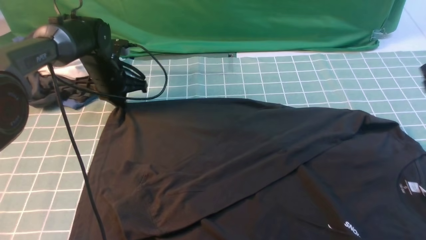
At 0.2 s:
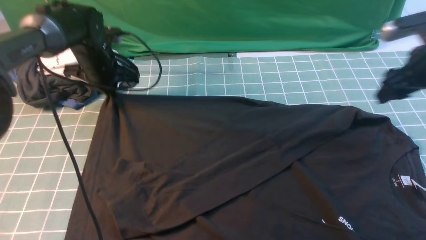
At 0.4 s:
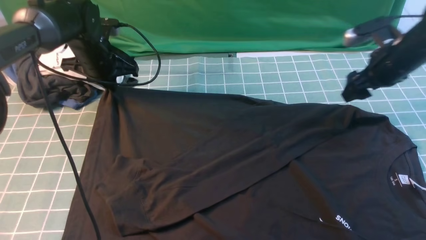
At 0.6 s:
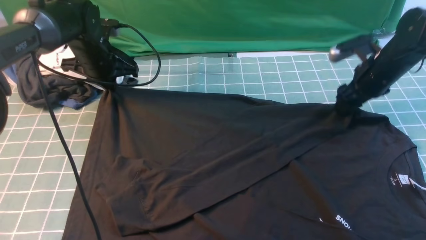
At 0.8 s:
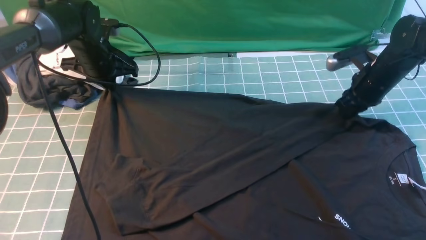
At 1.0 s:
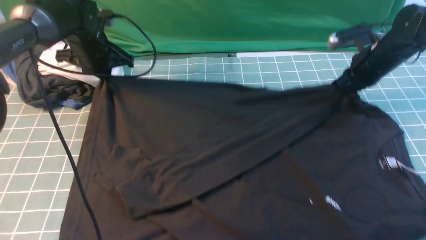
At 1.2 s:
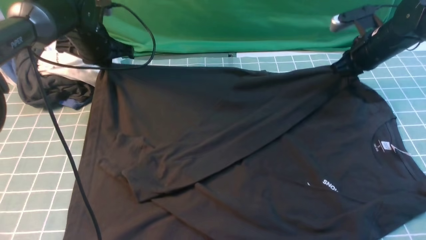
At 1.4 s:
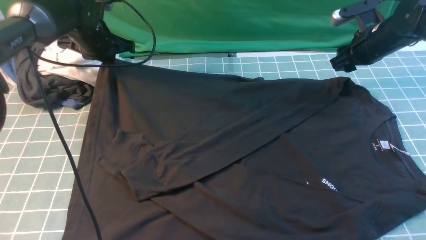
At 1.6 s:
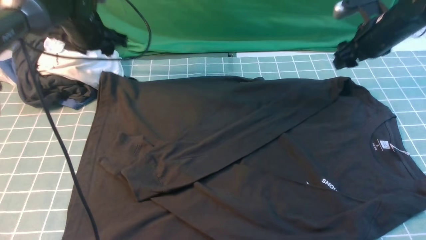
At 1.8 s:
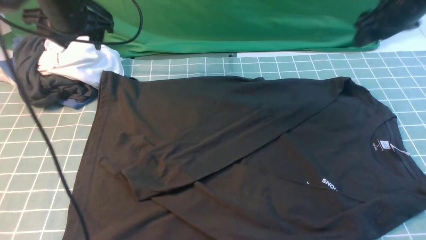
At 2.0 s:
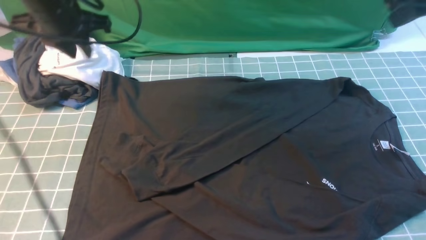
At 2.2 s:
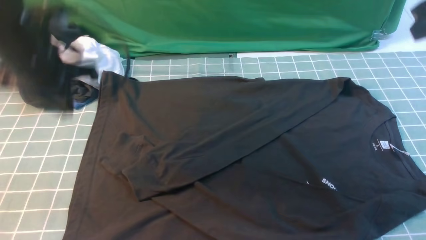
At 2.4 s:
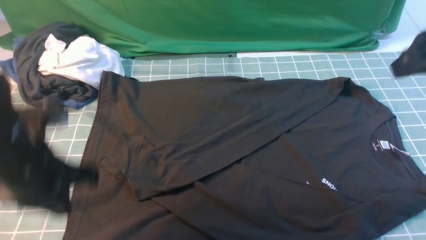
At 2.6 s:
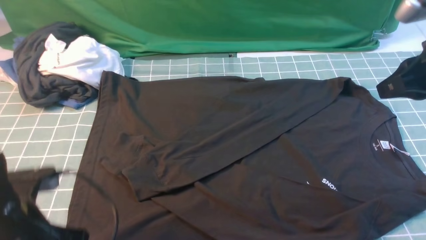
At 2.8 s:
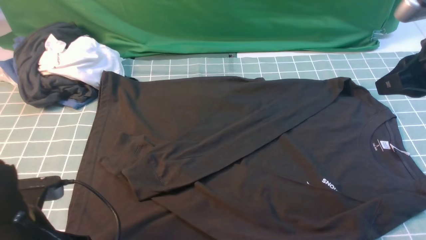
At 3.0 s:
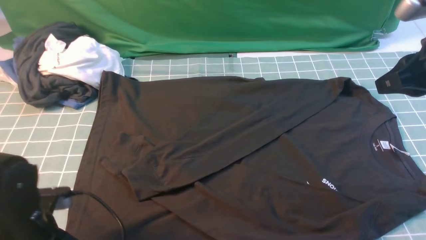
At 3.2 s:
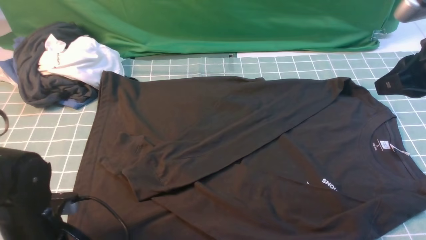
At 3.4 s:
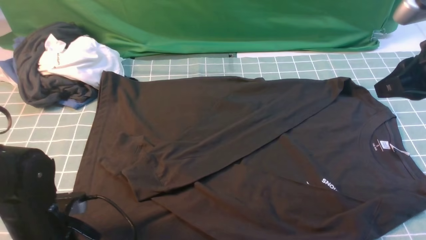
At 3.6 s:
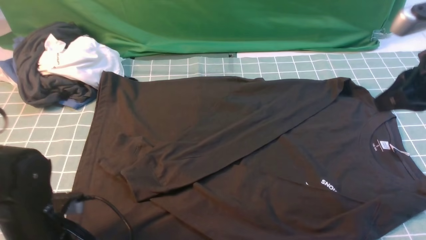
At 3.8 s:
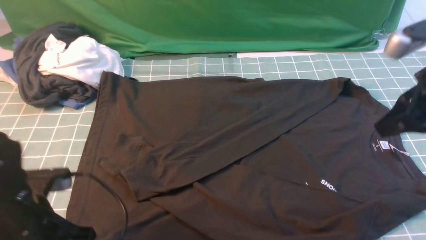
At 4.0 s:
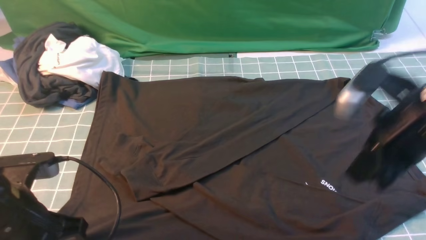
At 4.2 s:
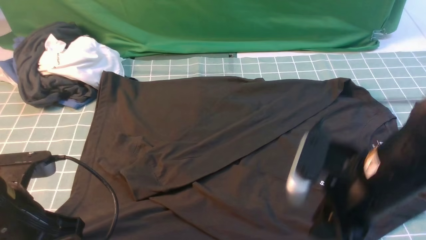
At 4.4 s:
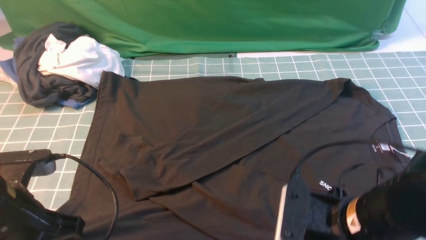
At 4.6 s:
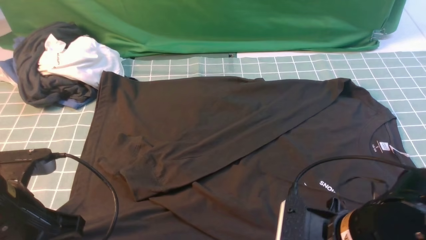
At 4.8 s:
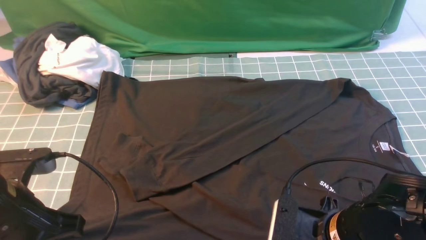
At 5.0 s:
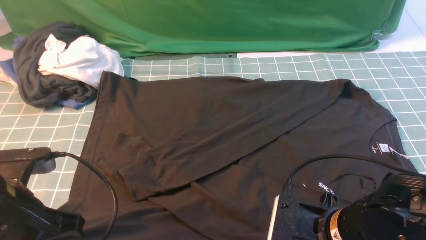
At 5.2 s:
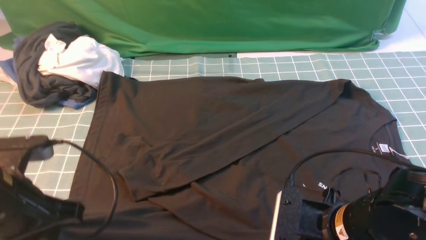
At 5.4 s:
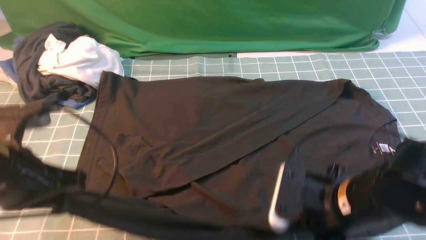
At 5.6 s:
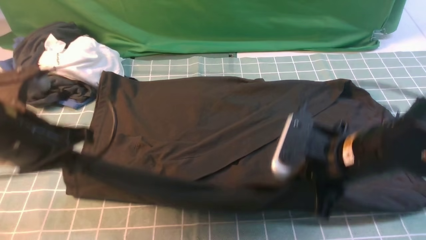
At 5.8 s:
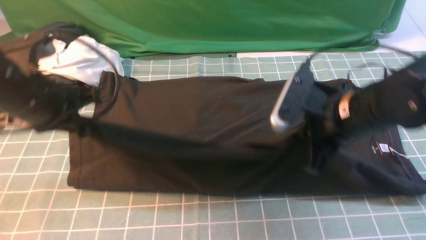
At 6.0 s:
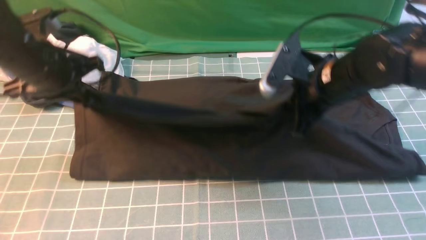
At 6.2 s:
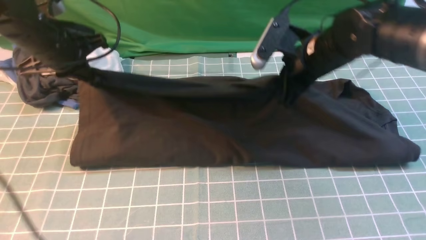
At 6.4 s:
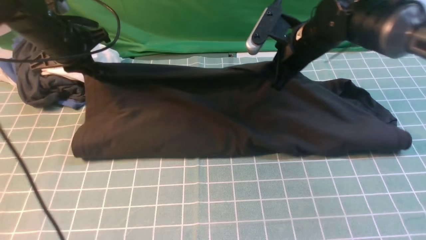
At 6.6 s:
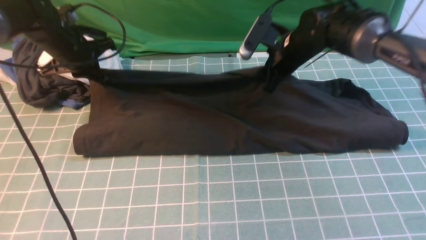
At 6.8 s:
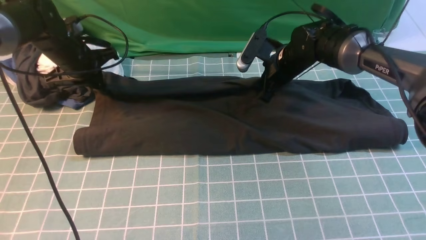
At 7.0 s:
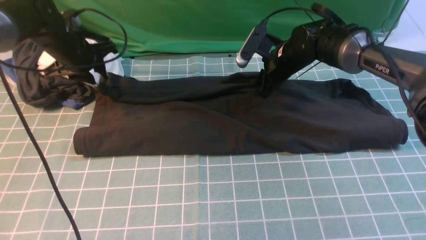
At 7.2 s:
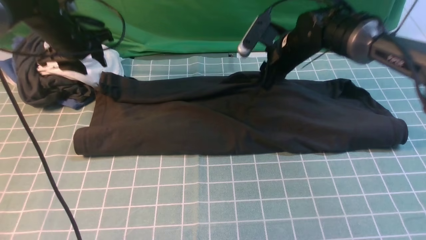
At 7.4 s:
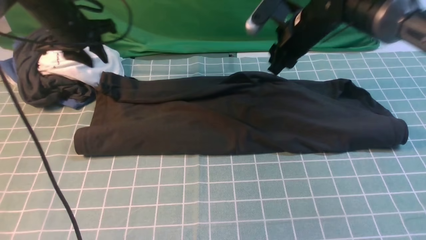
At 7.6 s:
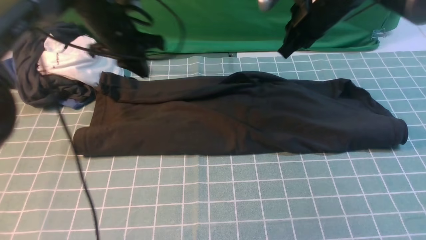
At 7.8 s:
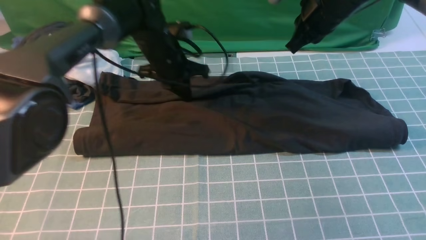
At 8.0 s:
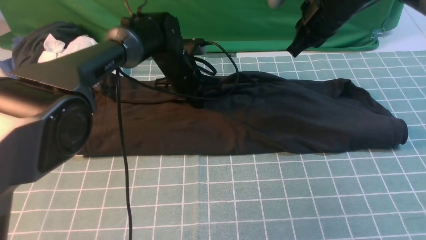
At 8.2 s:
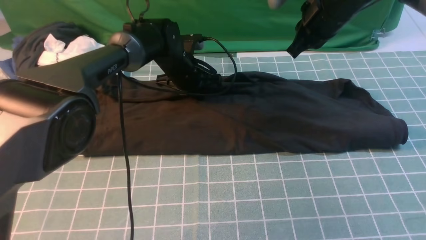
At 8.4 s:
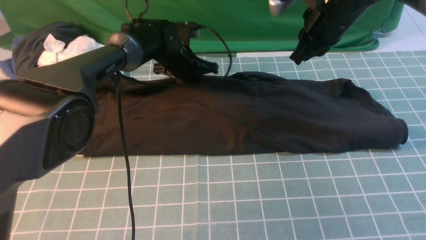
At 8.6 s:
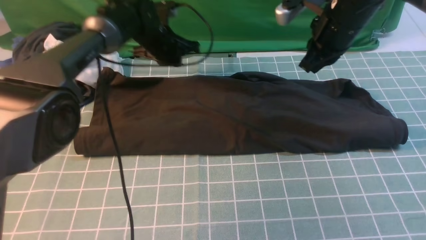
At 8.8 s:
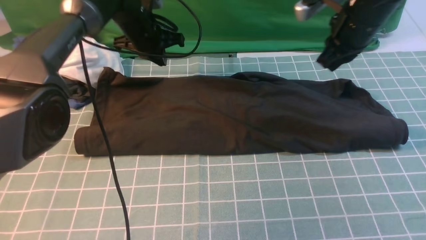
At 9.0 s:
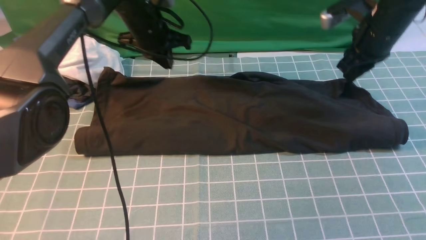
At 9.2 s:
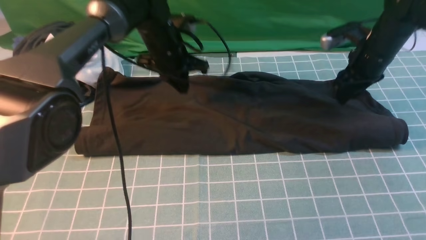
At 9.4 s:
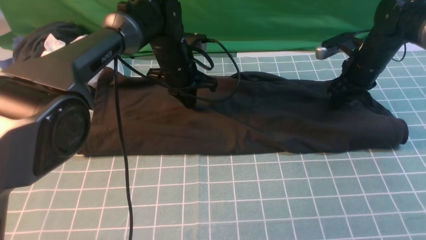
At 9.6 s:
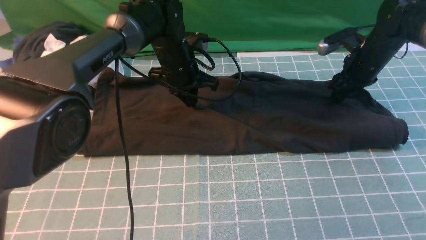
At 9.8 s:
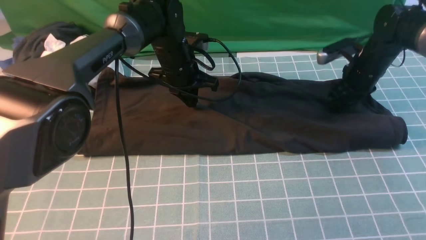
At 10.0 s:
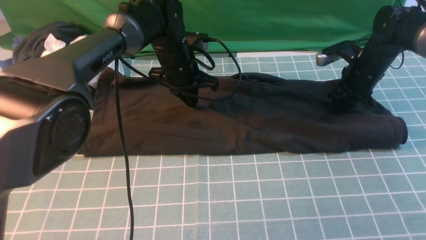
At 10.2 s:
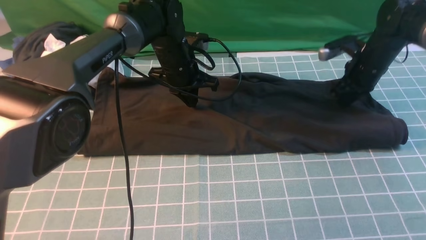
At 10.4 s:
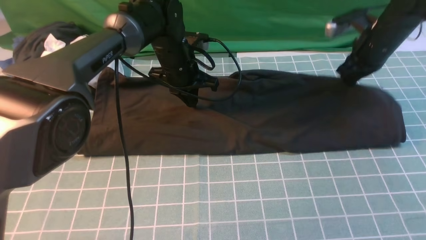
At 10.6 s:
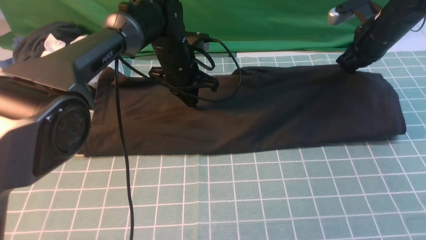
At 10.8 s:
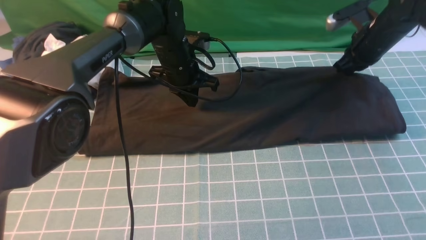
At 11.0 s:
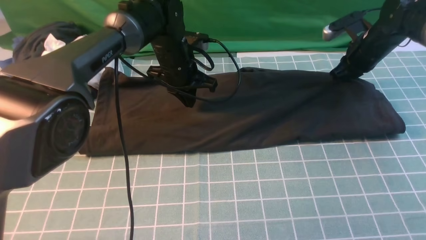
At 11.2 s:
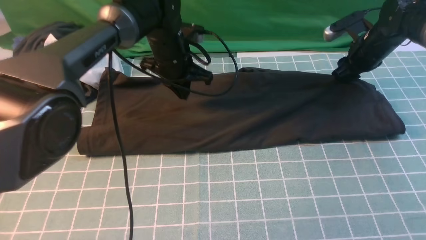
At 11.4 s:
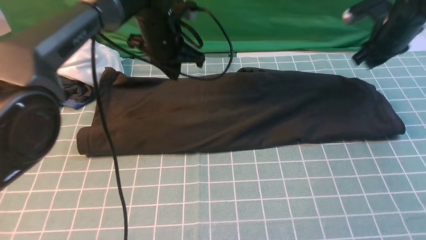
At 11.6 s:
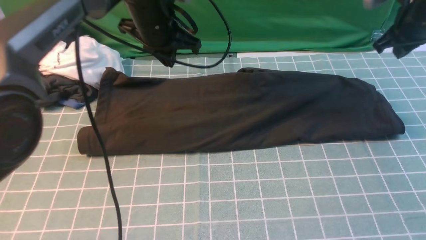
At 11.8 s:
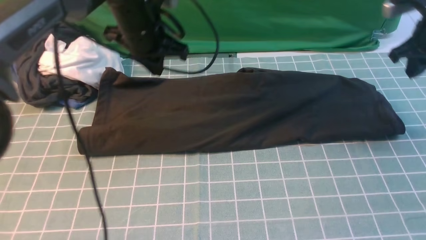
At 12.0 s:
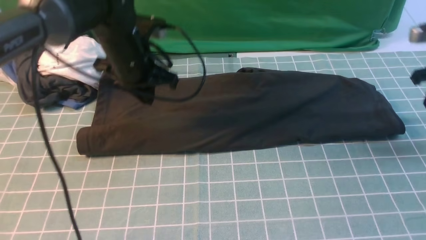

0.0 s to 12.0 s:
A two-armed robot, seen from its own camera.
Step, 0.0 to 7.8 s: use both arms to drag the lower edge of the fabric forward and fold it over the upper edge.
0.0 to 1.6 s: The left gripper moves upward, approximately 10 cm, and opens, while the right gripper goes some 15 cm forward and to the left, and opens up.
1.6 to 3.0 s: The left gripper travels backward by about 30 cm, and closes, then reopens. Meanwhile the right gripper is displaced backward by approximately 20 cm, and closes.
3.0 to 4.4 s: The right gripper shifts about 25 cm backward, downward and to the left, and opens. Meanwhile the left gripper goes some 5 cm upward, and closes up.
4.4 to 6.0 s: Both grippers move forward, roughly 20 cm. The right gripper closes.
6.0 to 7.6 s: The right gripper goes approximately 10 cm forward, and opens, then closes once more, while the left gripper shifts some 15 cm forward and to the right, and opens and closes again.
7.6 to 9.0 s: The right gripper is displaced to the right by roughly 10 cm. The left gripper goes downward and returns, roughly 10 cm each way.
9.0 to 10.4 s: The left gripper changes place by some 5 cm.
10.4 to 12.0 s: The left gripper moves to the left and backward, some 10 cm; the right gripper goes roughly 15 cm to the right and backward.

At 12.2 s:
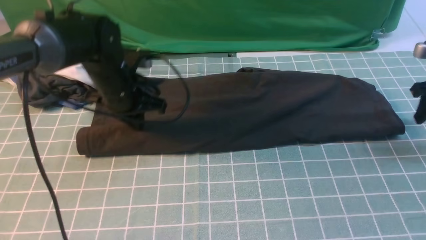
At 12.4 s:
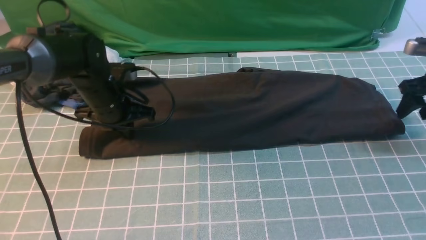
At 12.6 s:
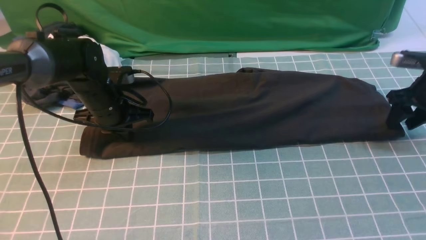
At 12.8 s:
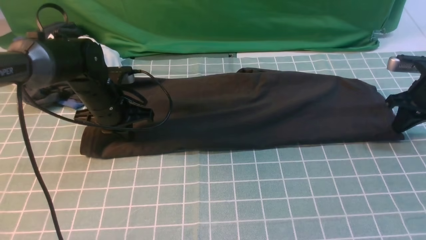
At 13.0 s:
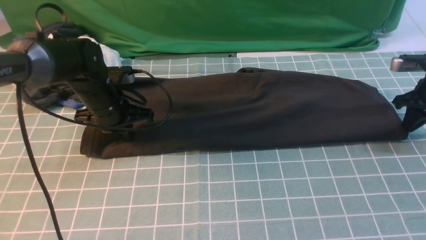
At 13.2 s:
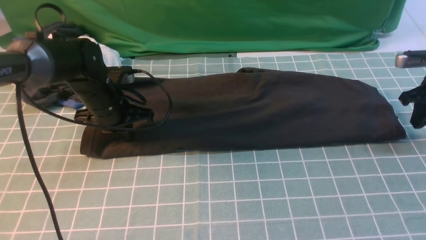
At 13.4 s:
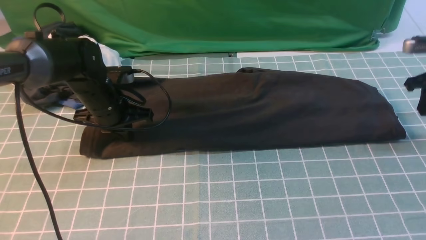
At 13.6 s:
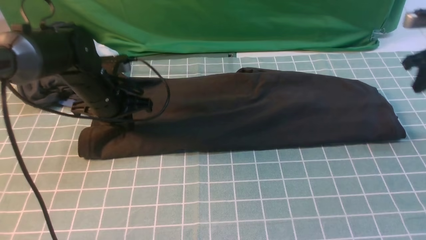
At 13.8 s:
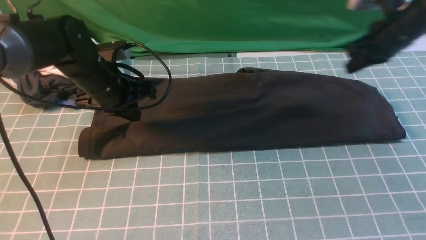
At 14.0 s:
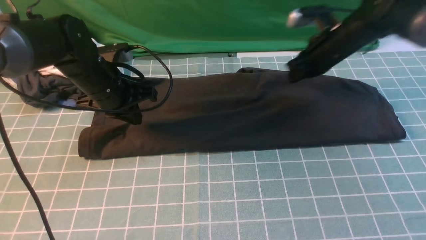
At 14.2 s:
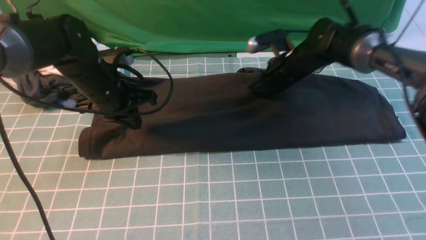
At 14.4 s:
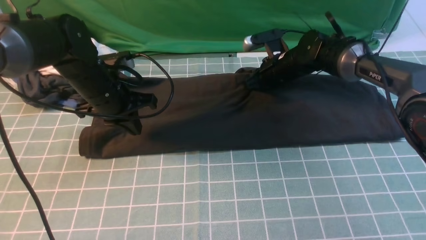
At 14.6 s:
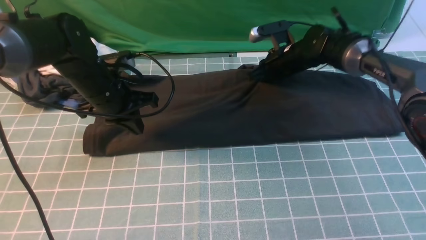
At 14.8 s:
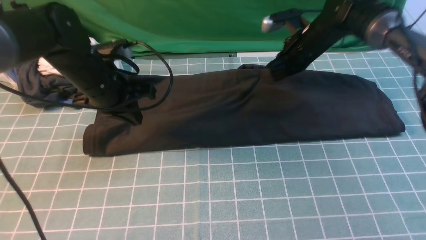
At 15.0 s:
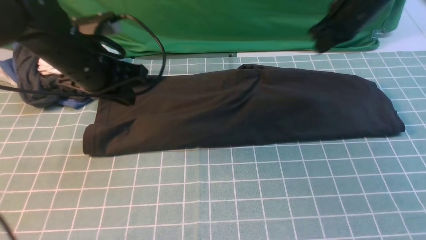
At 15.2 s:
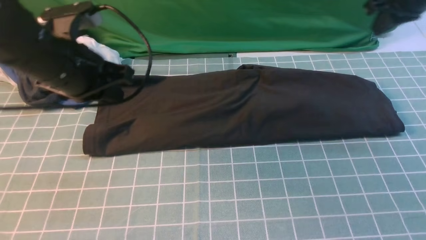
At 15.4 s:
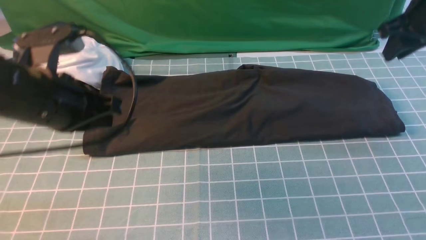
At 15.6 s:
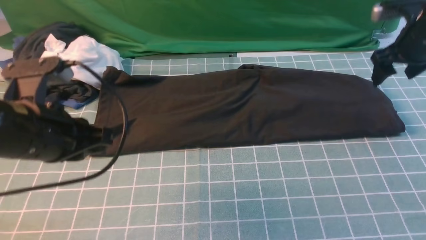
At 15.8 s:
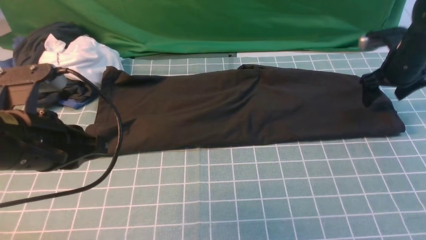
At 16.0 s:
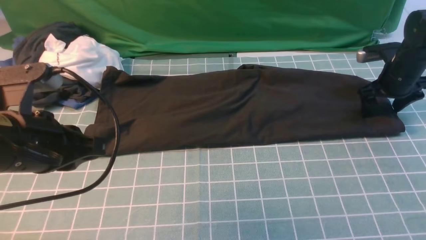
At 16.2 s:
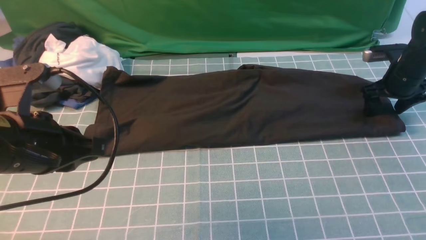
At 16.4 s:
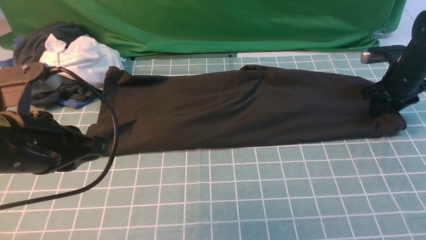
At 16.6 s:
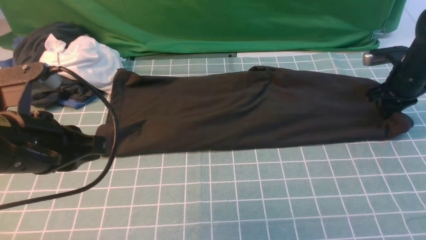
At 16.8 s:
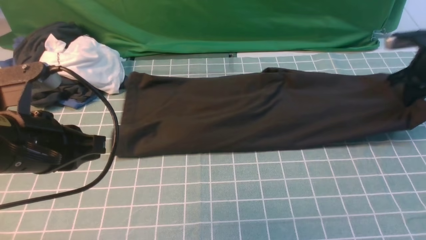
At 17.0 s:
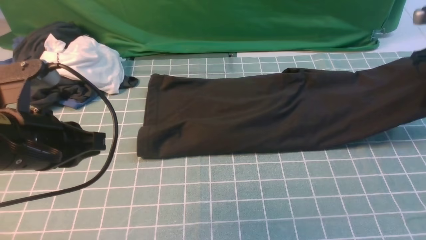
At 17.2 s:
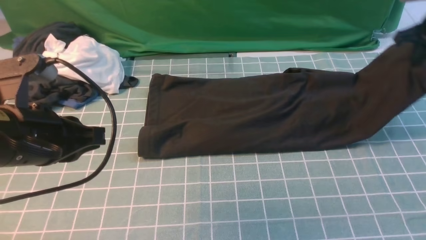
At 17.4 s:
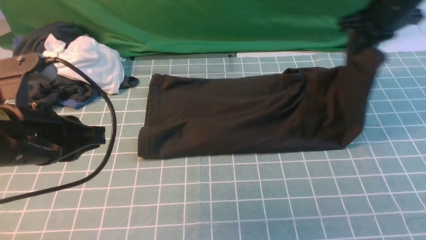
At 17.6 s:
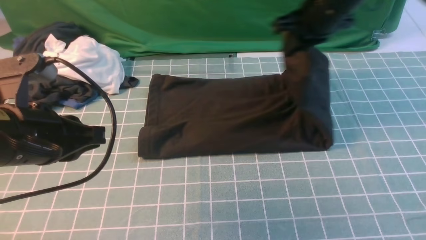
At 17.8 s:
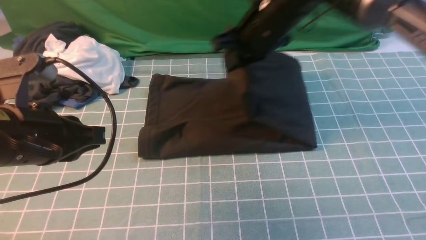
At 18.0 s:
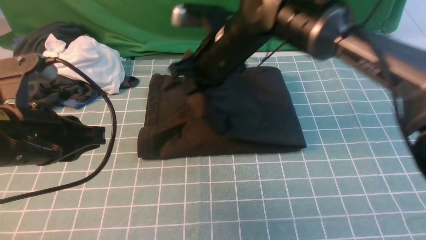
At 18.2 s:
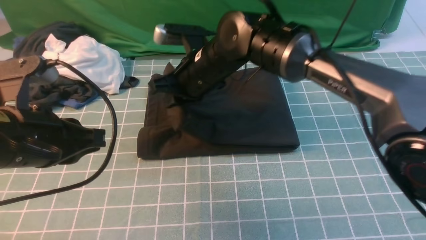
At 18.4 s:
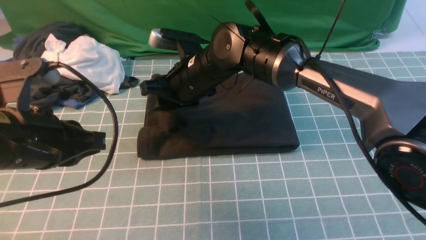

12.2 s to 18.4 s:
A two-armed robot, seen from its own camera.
Step, 12.2 to 16.6 s: use the right arm to clamp the right edge of the fabric.
12.2 to 13.8 s: The right gripper is displaced to the left by approximately 15 cm, and closes up.
13.8 to 15.4 s: The right gripper heads upward, covering roughly 5 cm, goes to the left and returns, approximately 15 cm each way, and opens its fingers. Meanwhile the left gripper travels backward and upward by approximately 15 cm.
15.4 to 16.8 s: The right gripper moves downward and to the right, roughly 10 cm, and closes up, while the left gripper heads backward, covering about 5 cm.
16.8 to 18.4 s: The right gripper shifts roughly 40 cm to the left, and opens up.
